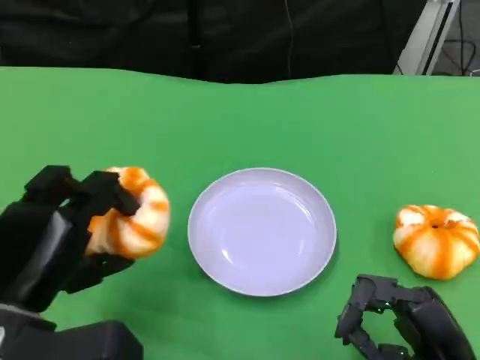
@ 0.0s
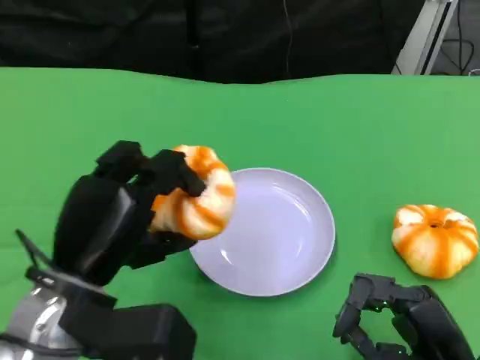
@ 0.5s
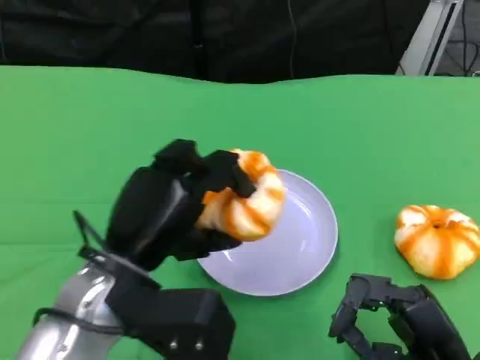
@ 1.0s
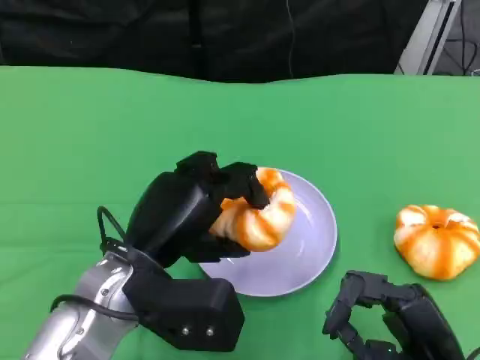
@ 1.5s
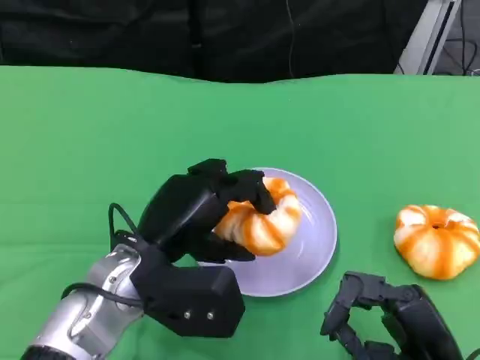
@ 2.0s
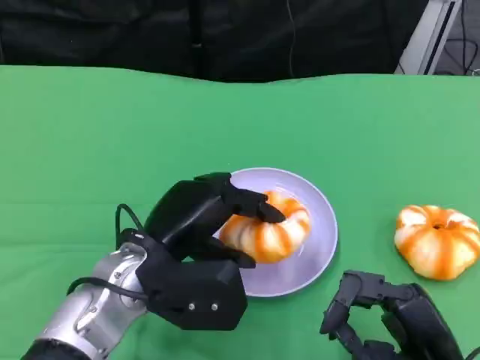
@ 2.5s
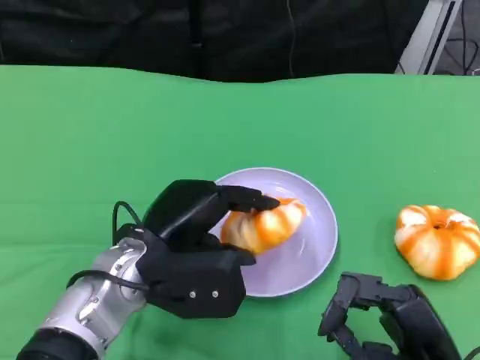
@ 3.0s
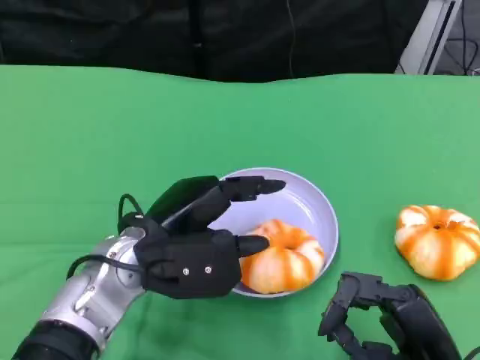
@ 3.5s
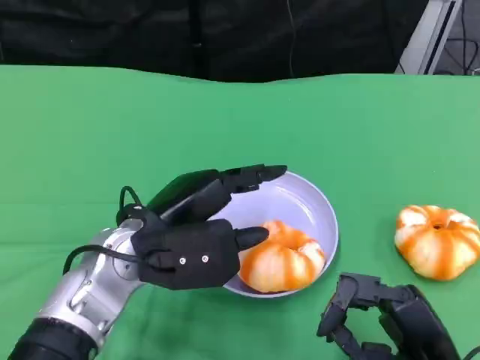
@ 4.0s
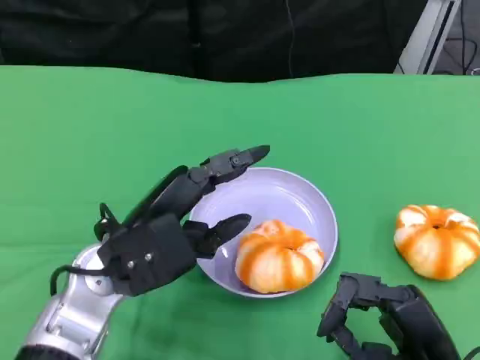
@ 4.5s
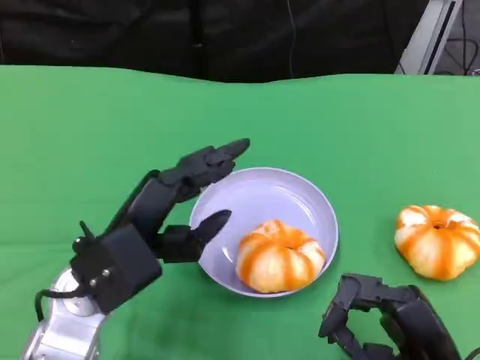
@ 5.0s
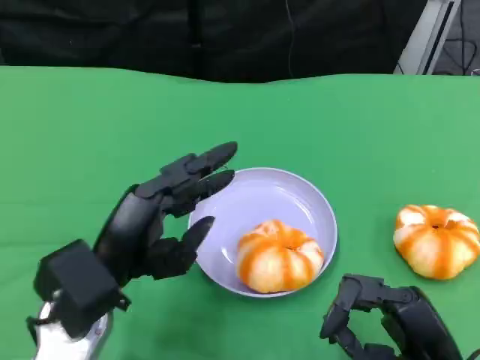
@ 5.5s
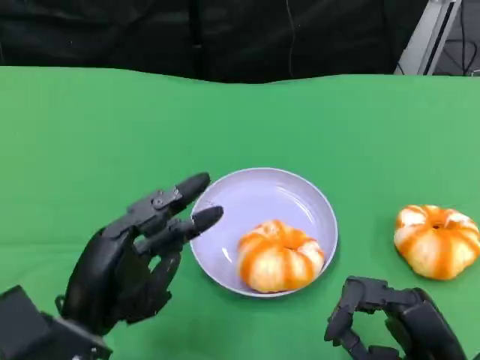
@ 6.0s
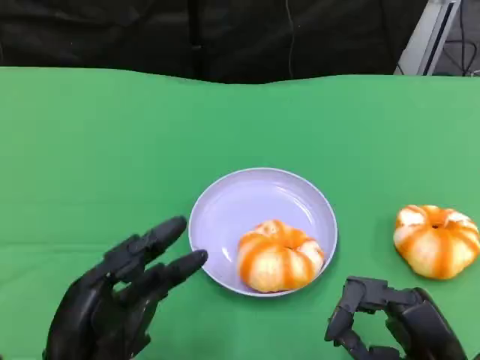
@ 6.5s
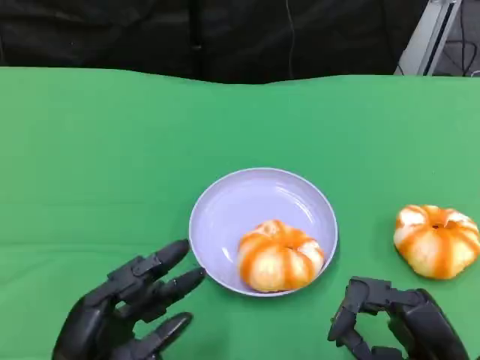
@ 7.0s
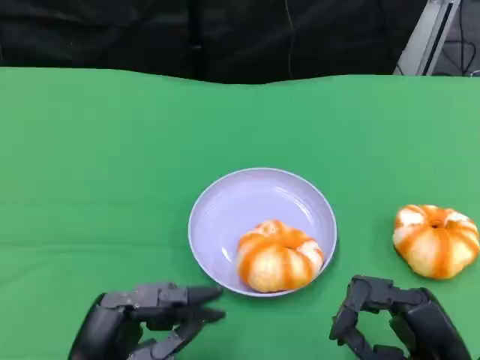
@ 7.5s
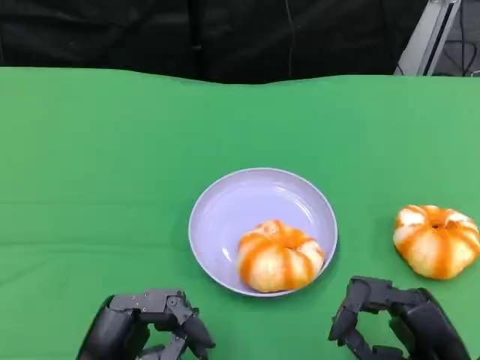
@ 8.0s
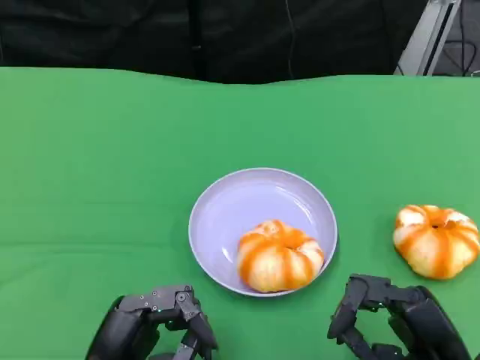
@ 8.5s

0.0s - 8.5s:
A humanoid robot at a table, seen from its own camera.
Task of the whole recording: Grasp the bread from the table and place it into the plate.
0.0s - 2.0s: The left hand moves to the right and forward, some 10 cm.
2.0s - 4.0s: There are only small adjustments of the hands.
4.0s - 6.5s: The left hand shifts roughly 15 cm backward, to the left and downward.
6.5s - 8.5s: The hands move only a little.

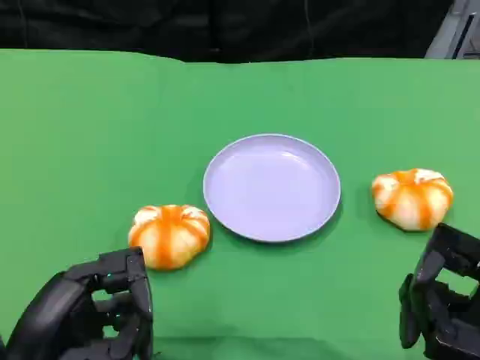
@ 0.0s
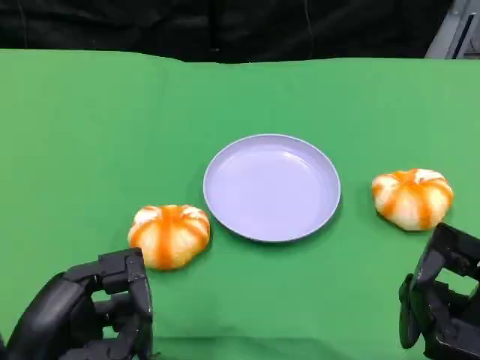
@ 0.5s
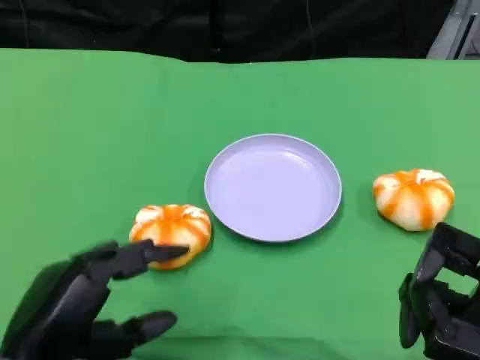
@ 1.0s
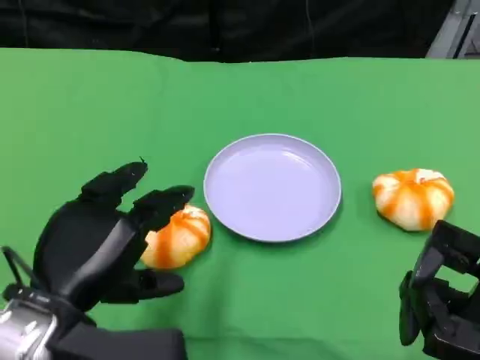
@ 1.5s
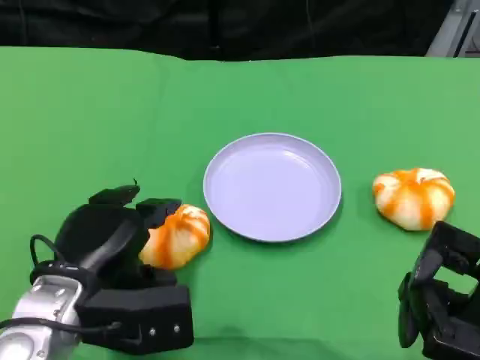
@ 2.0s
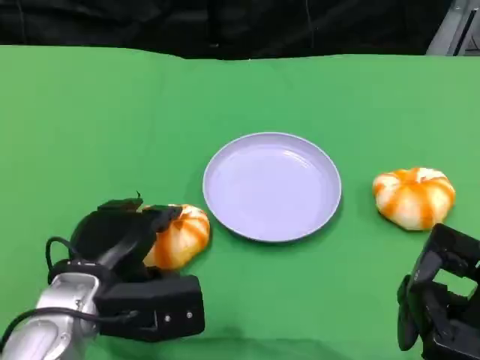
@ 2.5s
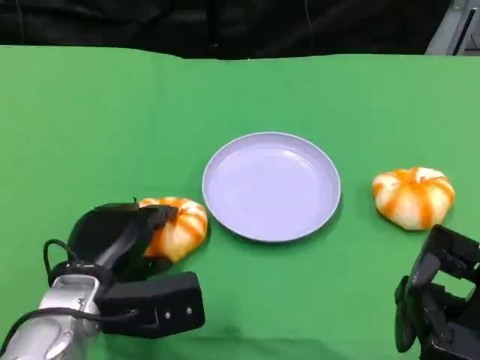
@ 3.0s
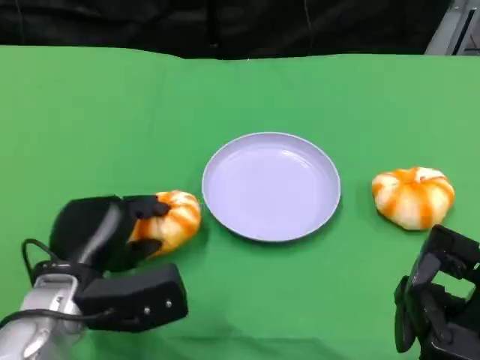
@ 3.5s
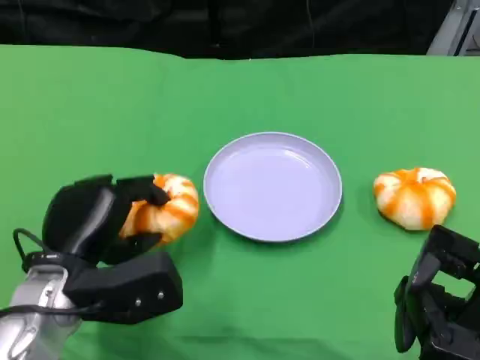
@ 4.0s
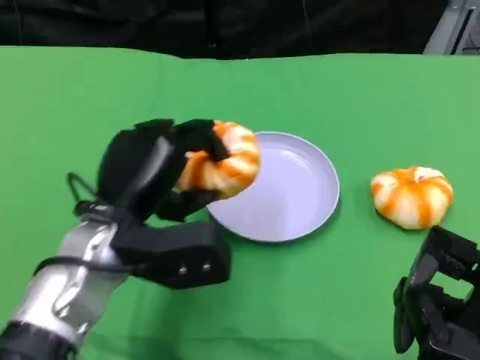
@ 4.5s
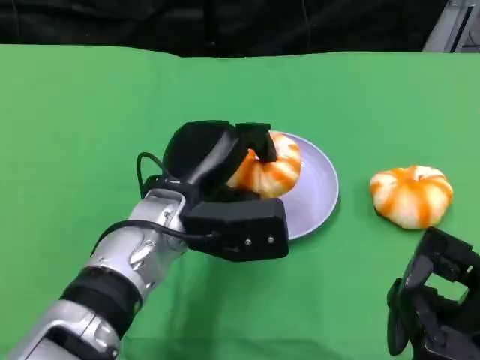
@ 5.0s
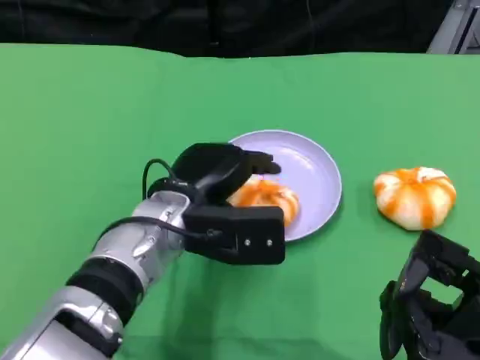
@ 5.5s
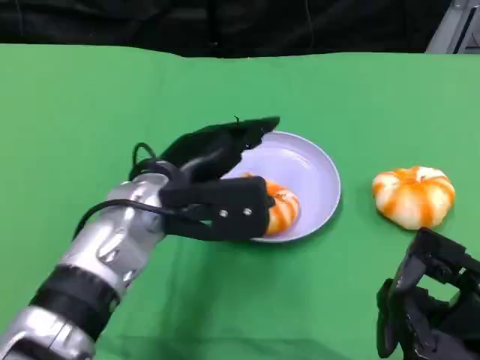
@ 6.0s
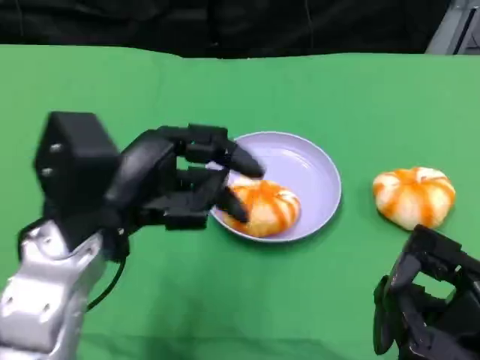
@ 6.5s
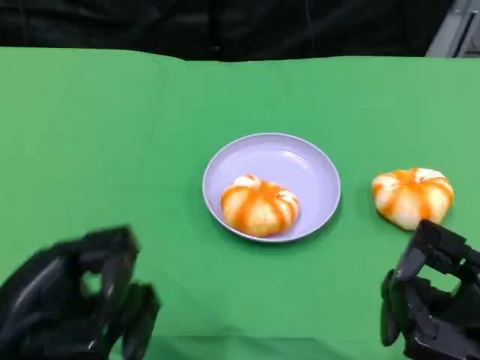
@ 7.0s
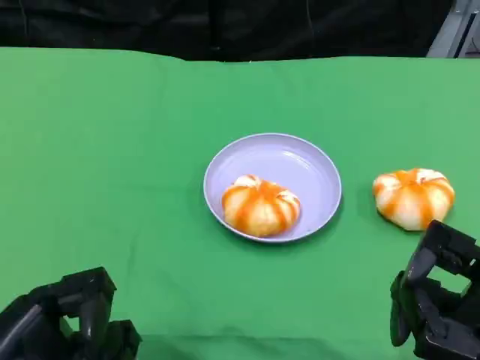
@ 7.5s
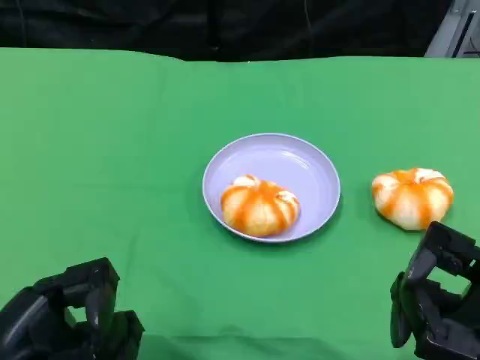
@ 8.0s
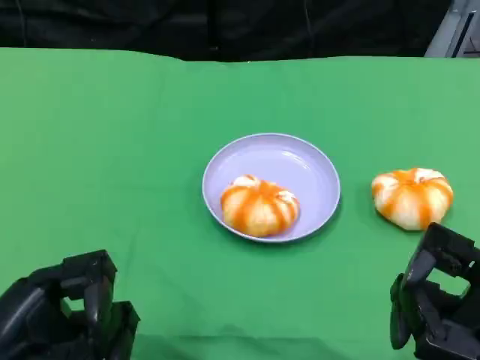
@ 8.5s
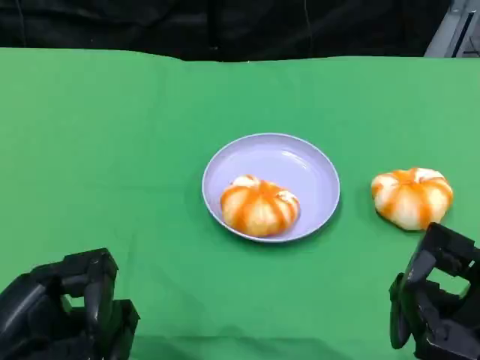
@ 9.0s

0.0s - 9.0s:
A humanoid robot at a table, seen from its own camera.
Task of the whole recording: Grasp the bread from the table and place it into the plate.
0.0s - 2.0s: The left hand travels forward by about 10 cm.
2.0s - 4.5s: The left hand moves roughly 10 cm.
4.5s - 7.0s: The left hand shifts about 20 cm backward and to the left.
7.0s - 9.0s: The hands stay close to where they were, moving slightly.
